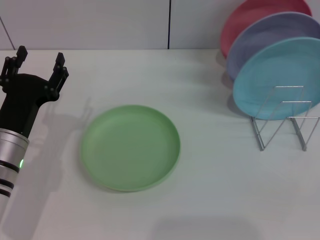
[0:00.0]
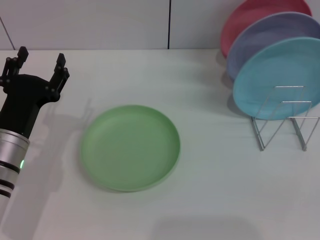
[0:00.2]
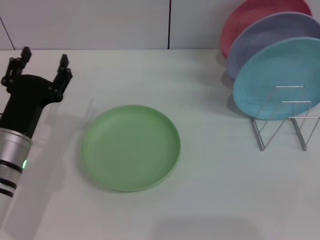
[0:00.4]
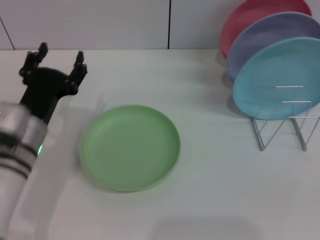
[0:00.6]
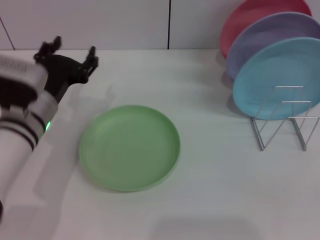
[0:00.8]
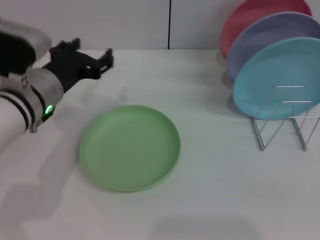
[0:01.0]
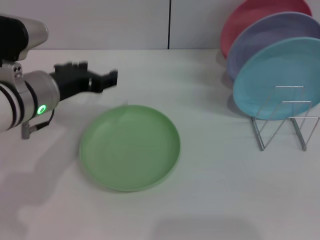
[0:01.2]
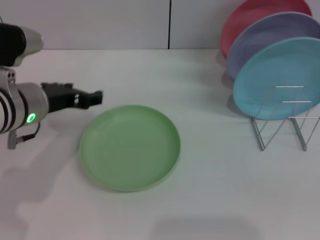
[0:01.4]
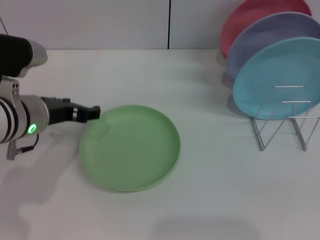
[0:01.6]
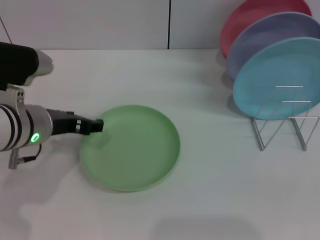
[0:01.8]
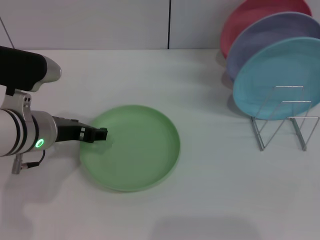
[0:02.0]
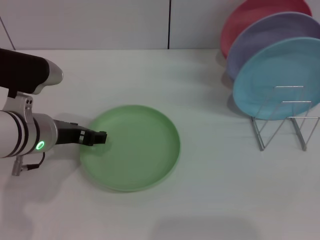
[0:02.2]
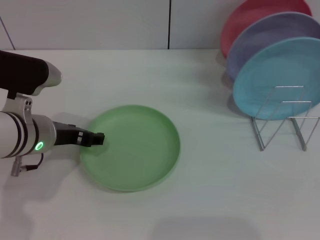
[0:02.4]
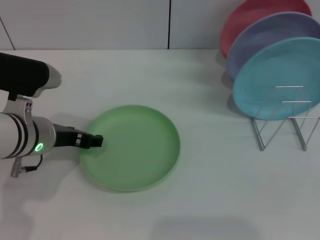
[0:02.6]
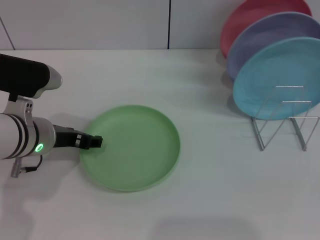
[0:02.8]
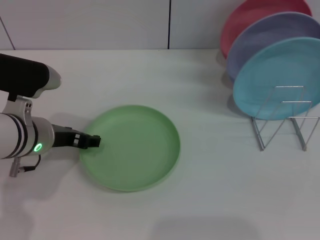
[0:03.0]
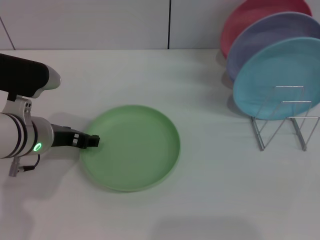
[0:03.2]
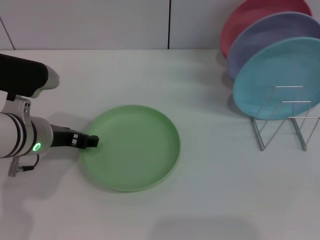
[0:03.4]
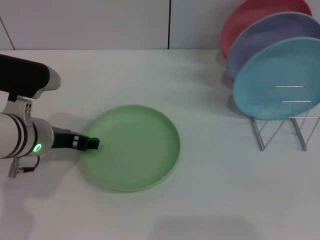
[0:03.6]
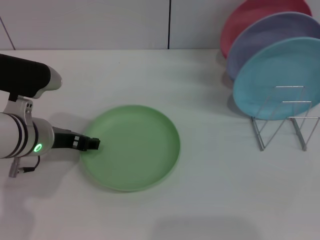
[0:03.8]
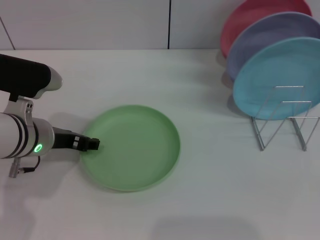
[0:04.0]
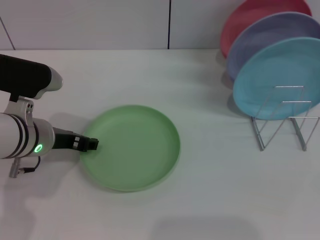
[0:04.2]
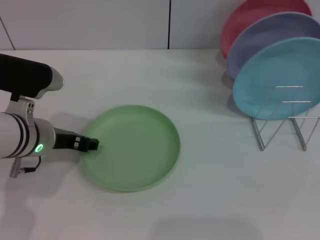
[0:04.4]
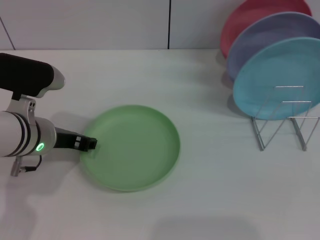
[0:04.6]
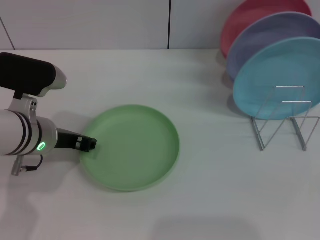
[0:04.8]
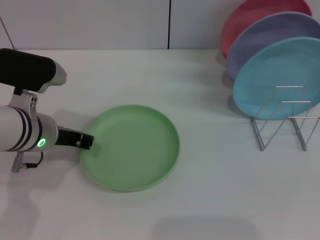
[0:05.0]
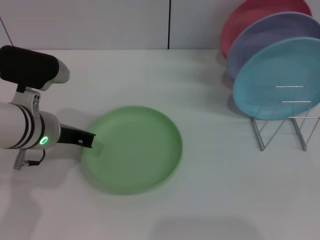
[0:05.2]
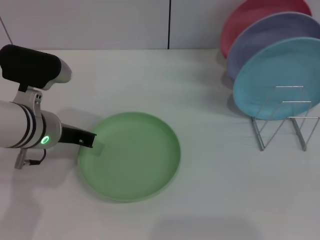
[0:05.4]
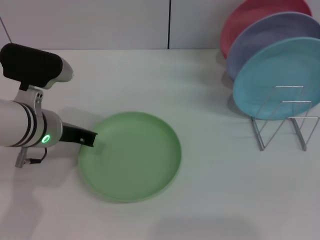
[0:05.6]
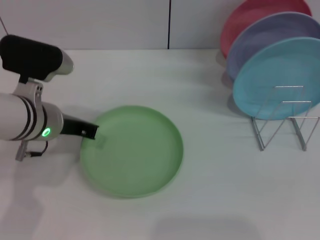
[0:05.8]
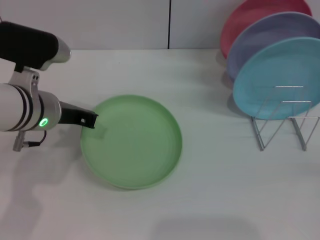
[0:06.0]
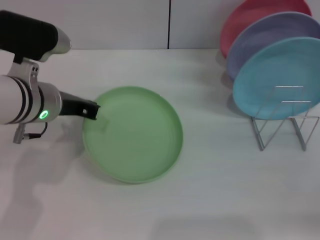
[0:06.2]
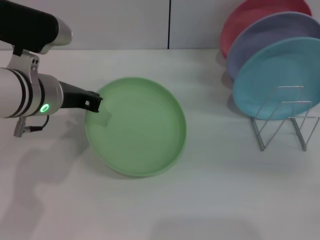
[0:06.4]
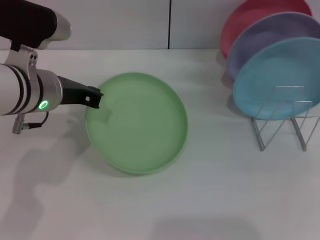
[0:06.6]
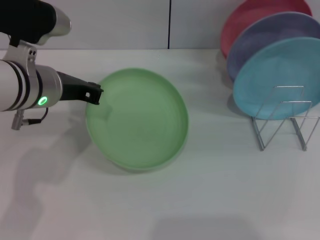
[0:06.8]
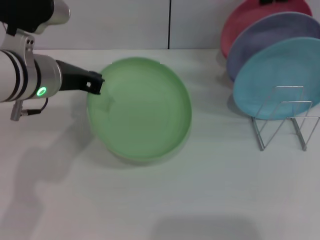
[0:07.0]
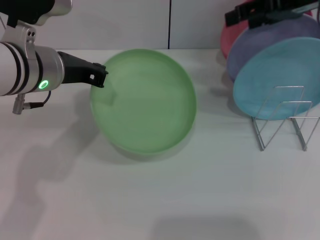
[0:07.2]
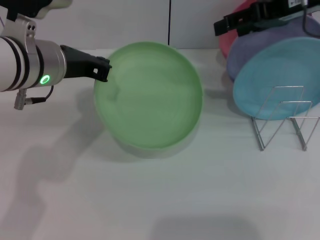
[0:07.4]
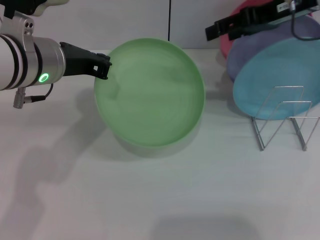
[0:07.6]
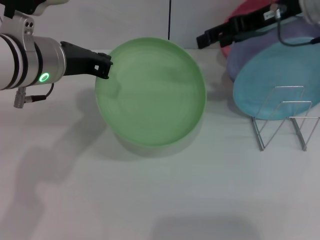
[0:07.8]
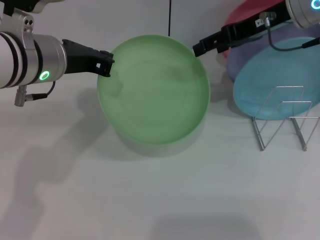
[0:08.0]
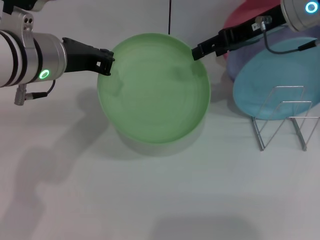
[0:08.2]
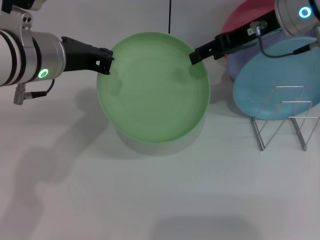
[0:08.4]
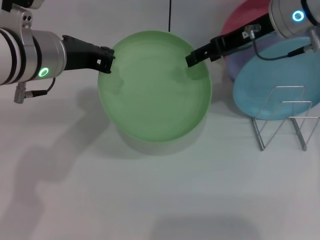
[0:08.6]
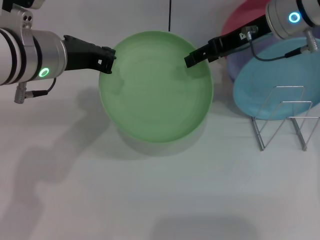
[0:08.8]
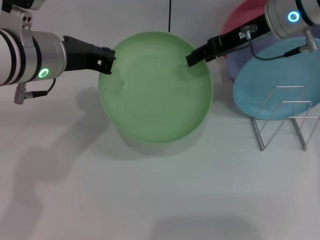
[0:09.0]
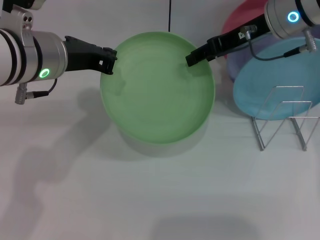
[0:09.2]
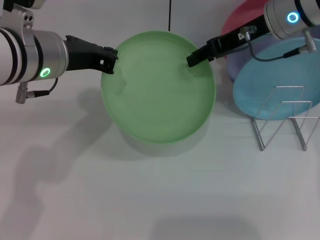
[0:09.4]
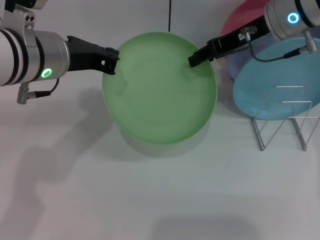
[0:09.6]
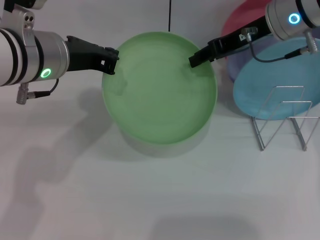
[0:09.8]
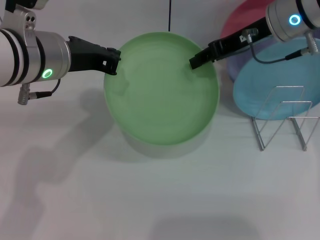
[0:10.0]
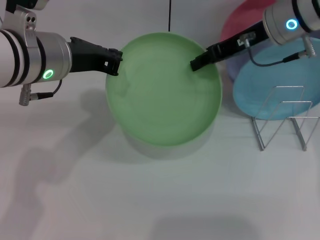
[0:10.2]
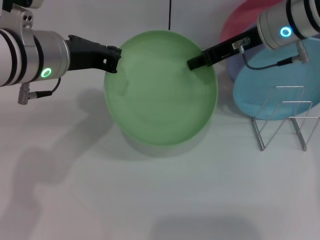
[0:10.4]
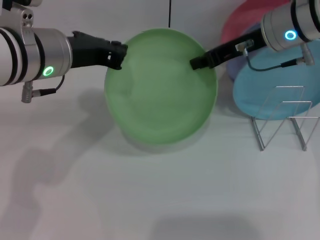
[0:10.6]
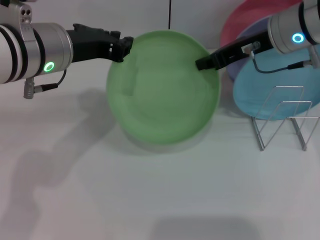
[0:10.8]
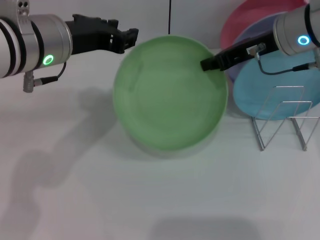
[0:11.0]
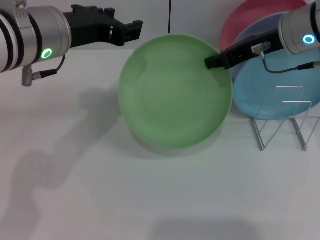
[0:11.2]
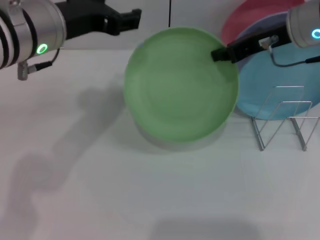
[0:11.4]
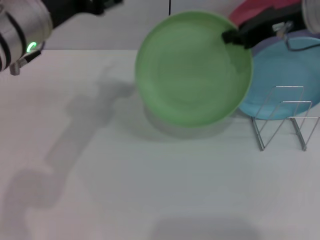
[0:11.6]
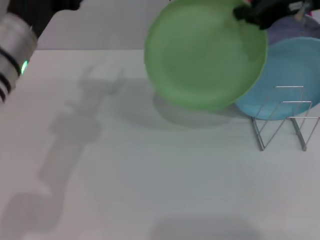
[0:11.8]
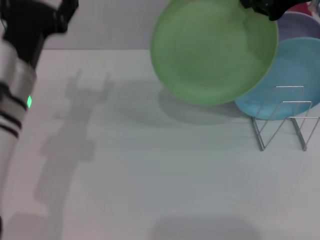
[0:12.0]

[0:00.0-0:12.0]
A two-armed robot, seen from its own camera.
Task of the whole recording: Grip the plate with one hand, pass it to the other, then set it on the shelf.
Step, 0:00.0 to 0:07.0: Pick up the plate with the left gripper.
Step, 0:07.2 to 0:11.2: Pass the plate from the left gripper to the right gripper.
0:00.0 to 0:01.6: The left gripper heads upward, covering some 10 cm.
0:01.6 to 0:03.0: The grippers make only small movements.
0:03.0 to 0:04.4: Neither gripper changes place.
0:04.4 to 0:06.0: The left gripper closes up.
0:06.0 to 0:07.6: The right gripper travels forward, upward and to the left by some 35 cm. The left gripper shifts about 5 cm upward.
0:07.6 to 0:09.0: The right gripper shifts by roughly 5 cm.
0:09.0 to 0:10.4: The right gripper closes up.
0:10.4 to 0:12.0: The right gripper is displaced upward and to the right by about 10 cm. The left gripper is displaced downward by some 5 cm, and opens up.

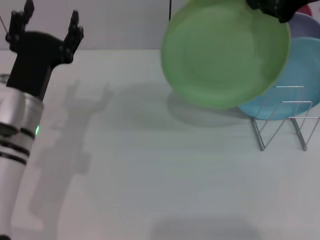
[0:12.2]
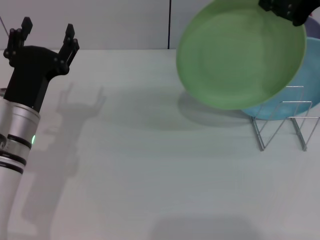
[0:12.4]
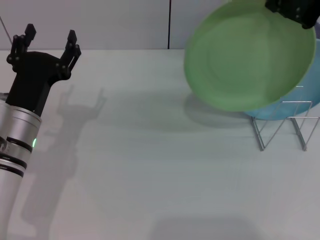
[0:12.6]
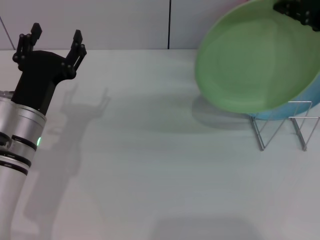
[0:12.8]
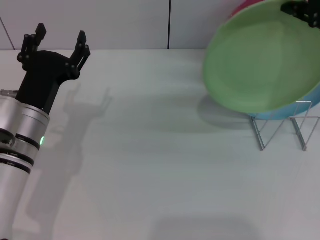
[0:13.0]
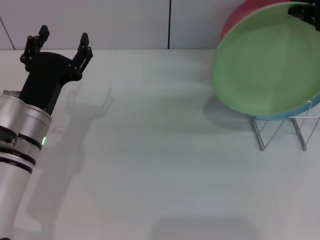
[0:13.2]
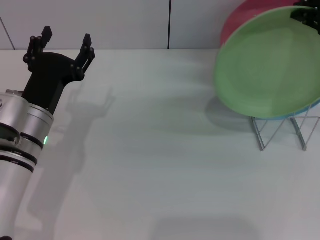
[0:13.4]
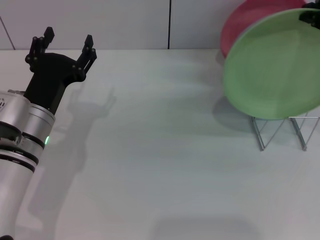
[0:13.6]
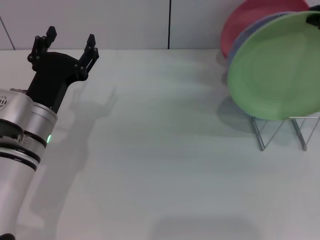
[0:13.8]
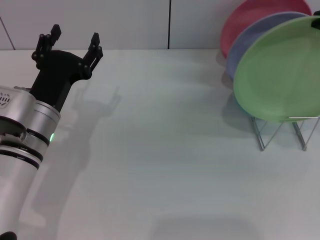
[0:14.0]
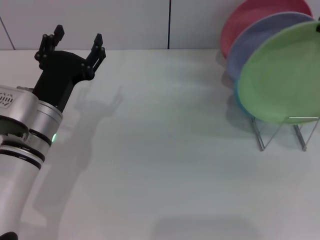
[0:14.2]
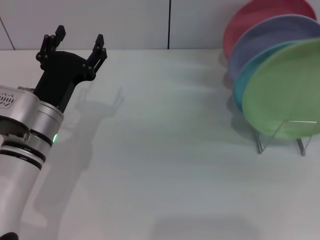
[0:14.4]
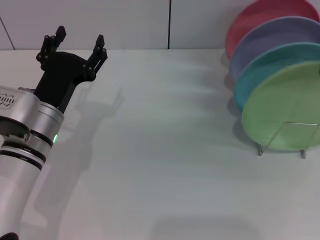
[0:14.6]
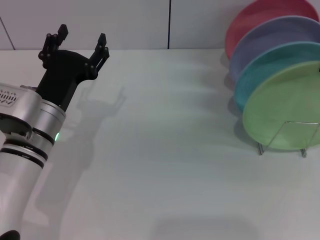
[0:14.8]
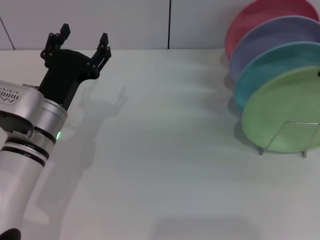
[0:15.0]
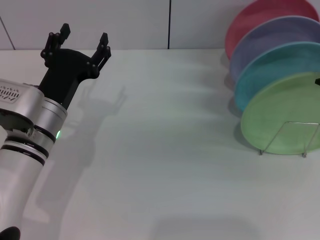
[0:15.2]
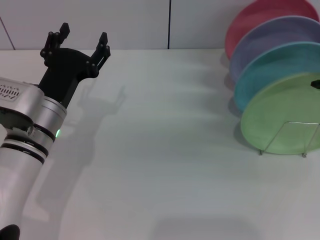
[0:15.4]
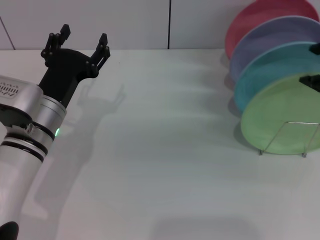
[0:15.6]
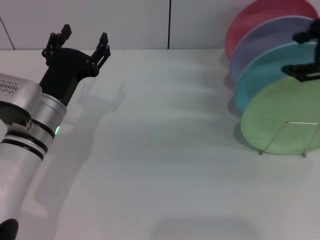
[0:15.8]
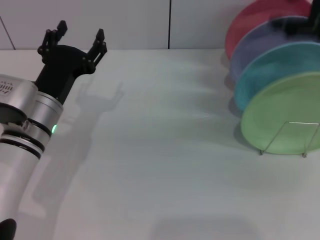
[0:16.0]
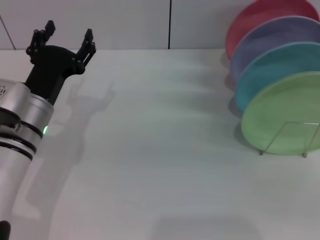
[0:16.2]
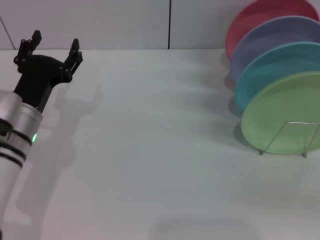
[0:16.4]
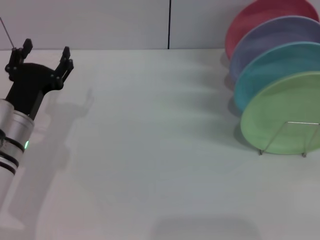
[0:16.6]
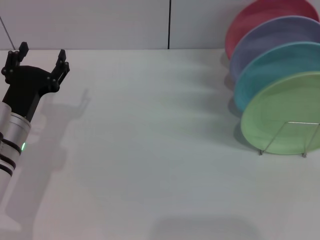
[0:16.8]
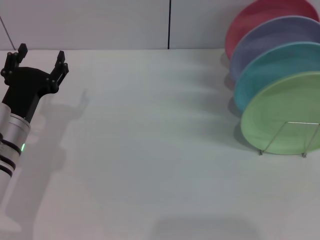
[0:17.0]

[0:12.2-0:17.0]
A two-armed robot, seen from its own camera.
Task of the whole recording: Grip the plate with one hand, pass it to the other, then set it on the shelf.
Step, 0:12.2 to 0:15.6: Place the plate on the shelf with the right gripper.
0:12.2 to 0:13.8: The right gripper is displaced backward by approximately 5 cm.
0:13.8 to 0:15.4: The right gripper opens.
0:15.4 to 0:17.0: The left gripper goes some 5 cm to the left. Meanwhile the right gripper heads downward, backward and to the right, covering approximately 35 cm.

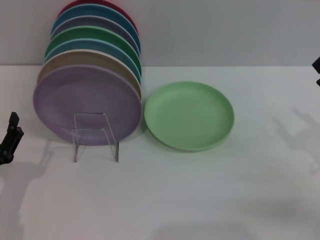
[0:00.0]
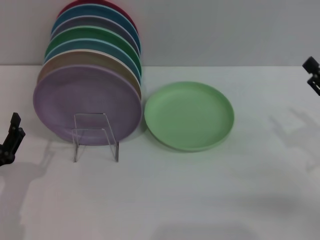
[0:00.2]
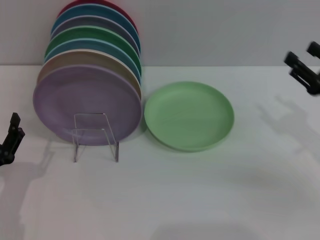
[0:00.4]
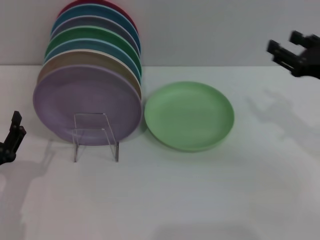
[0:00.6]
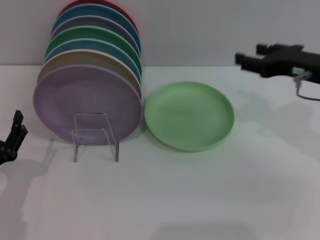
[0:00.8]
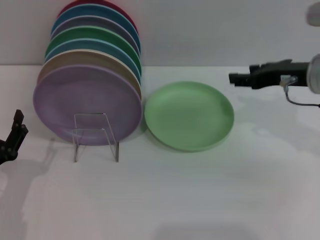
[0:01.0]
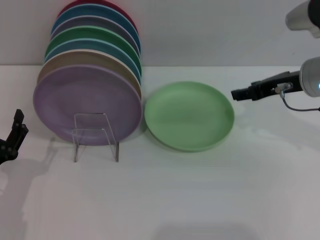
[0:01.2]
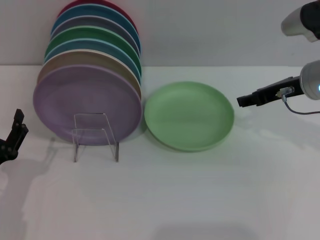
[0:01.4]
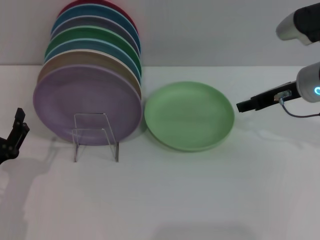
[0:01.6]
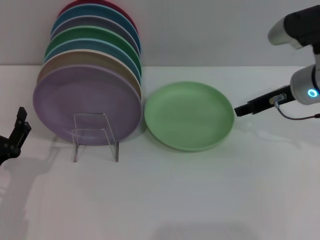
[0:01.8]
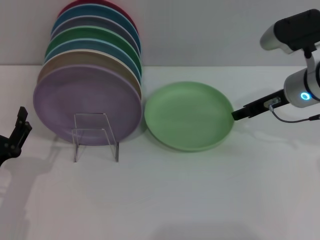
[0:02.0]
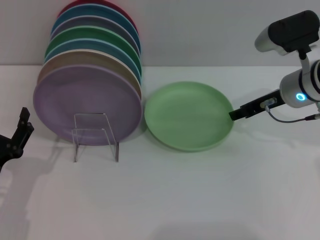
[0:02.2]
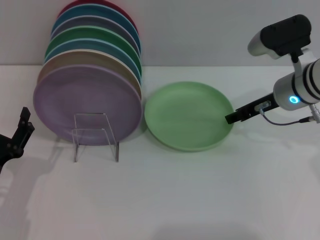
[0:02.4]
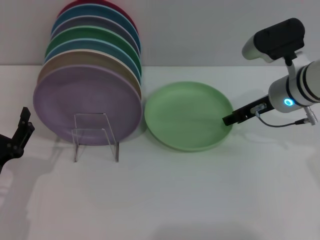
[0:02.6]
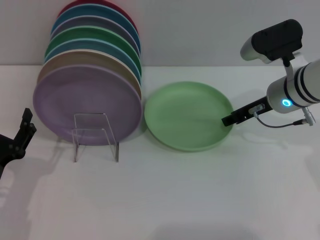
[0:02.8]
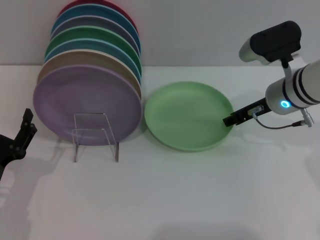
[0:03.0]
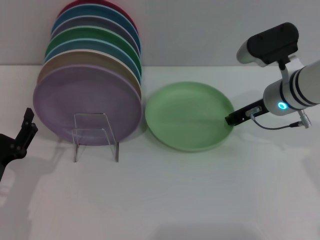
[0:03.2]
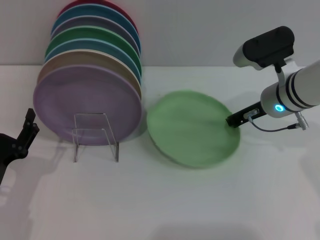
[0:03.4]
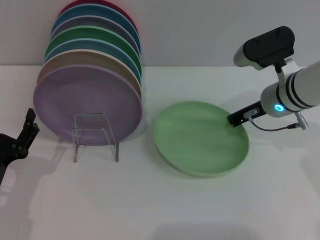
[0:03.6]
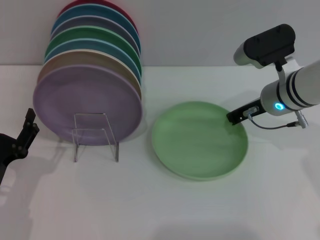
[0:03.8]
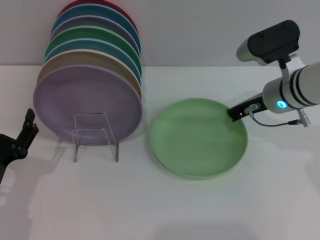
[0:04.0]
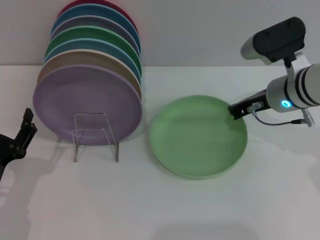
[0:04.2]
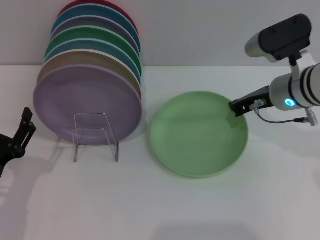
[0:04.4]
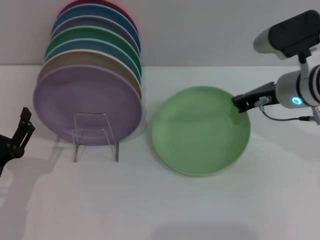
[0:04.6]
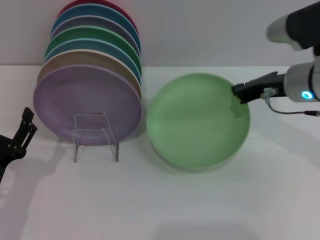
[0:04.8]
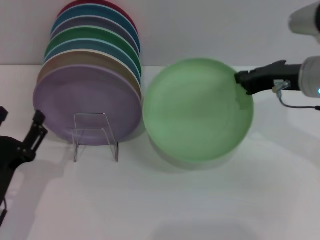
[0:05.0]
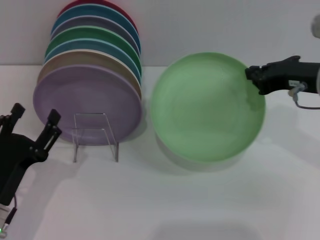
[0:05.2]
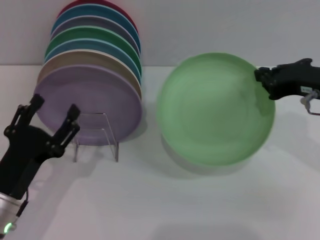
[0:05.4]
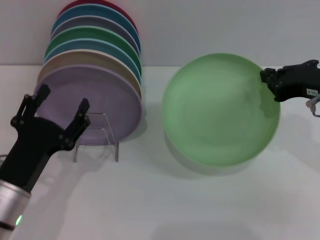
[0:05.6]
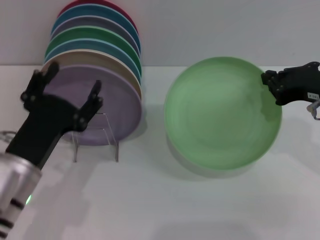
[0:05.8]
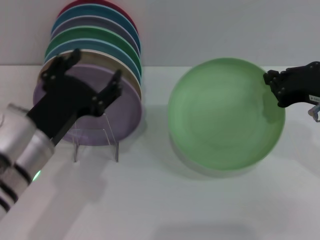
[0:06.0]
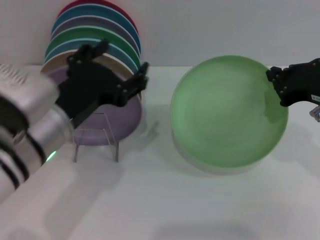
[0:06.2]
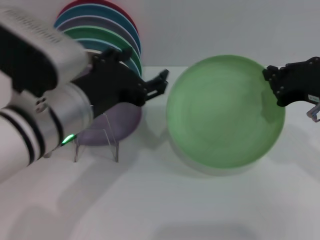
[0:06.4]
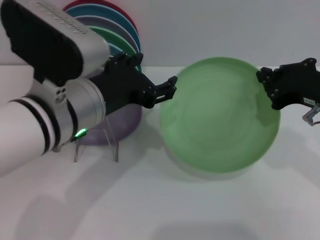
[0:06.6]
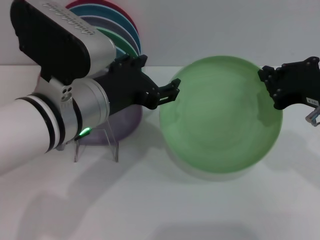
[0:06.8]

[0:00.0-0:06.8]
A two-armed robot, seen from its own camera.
Task of the whole recording: Grip the plate with one hand, pass it to the other, then set it on the shelf.
Step, 0:00.0 to 0:05.0: Pick up the plate with the right gripper.
0:00.0 to 0:01.4: The right gripper is displaced forward, to the left and upward by roughly 20 cm.
0:01.4 to 0:02.8: The right gripper changes place by roughly 5 cm.
0:02.8 to 0:04.0: The right gripper closes its fingers.
0:04.0 to 0:05.4: The right gripper goes some 10 cm backward and upward.
0:05.4 to 0:06.8: The left gripper shifts about 20 cm upward, to the right and forward.
